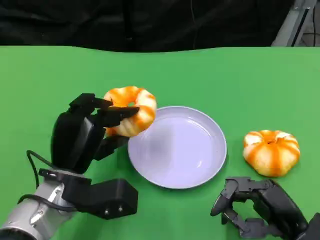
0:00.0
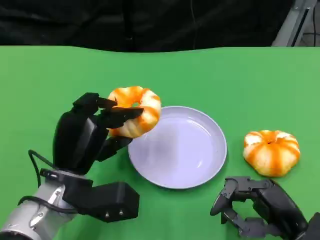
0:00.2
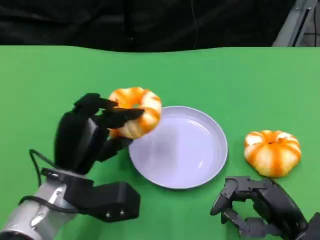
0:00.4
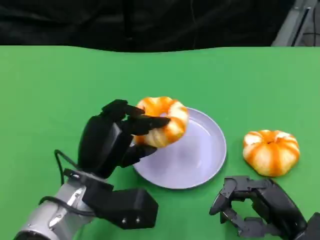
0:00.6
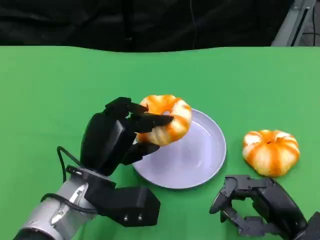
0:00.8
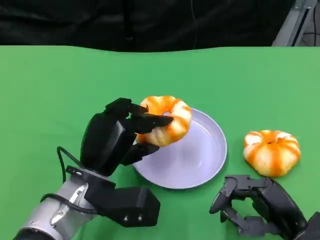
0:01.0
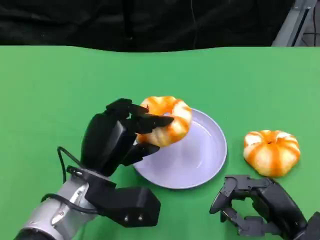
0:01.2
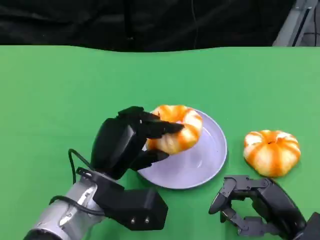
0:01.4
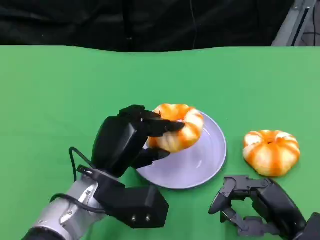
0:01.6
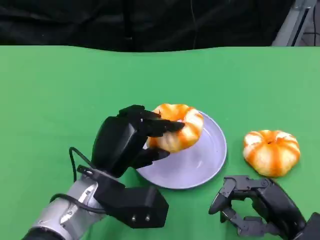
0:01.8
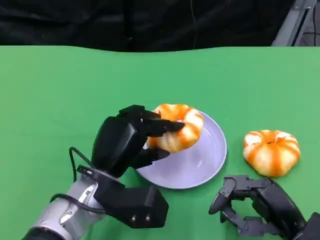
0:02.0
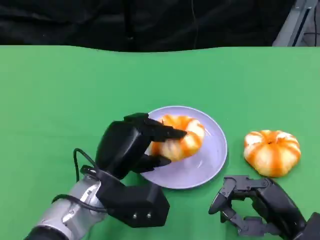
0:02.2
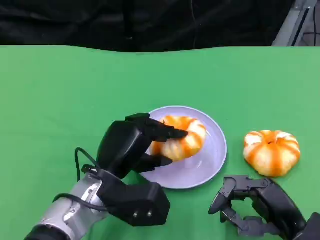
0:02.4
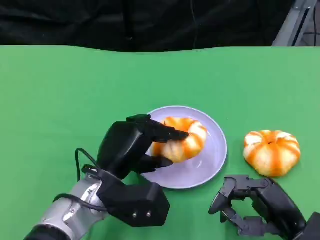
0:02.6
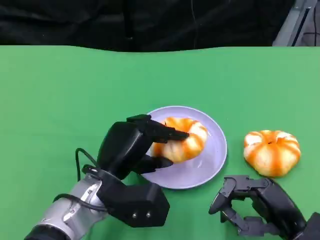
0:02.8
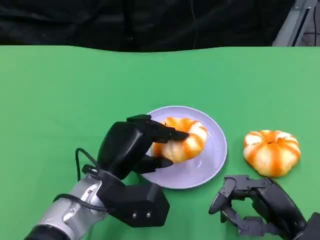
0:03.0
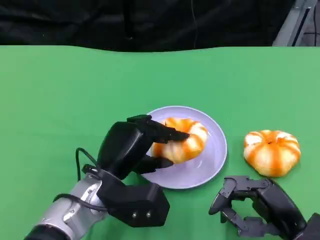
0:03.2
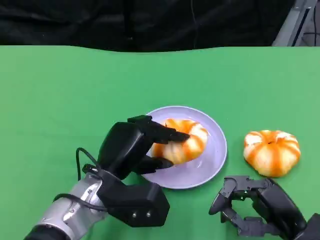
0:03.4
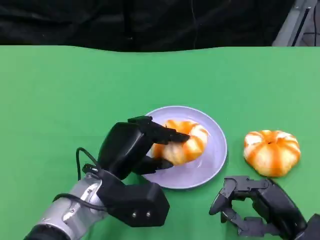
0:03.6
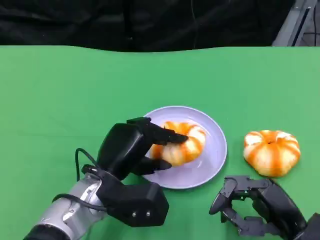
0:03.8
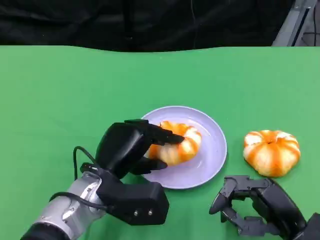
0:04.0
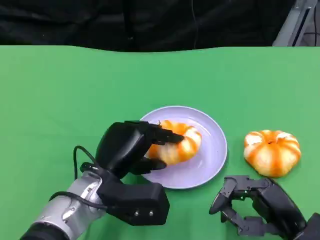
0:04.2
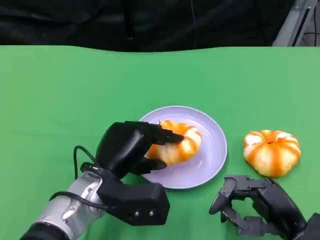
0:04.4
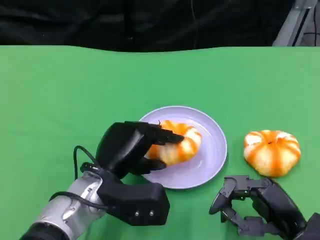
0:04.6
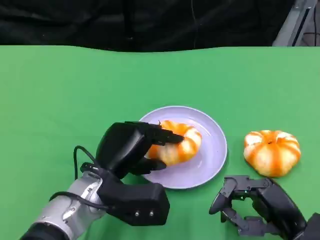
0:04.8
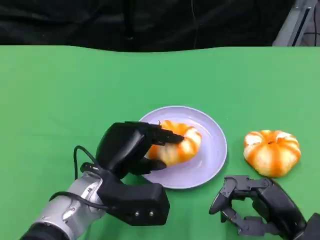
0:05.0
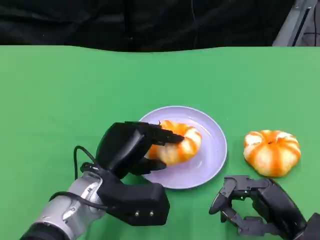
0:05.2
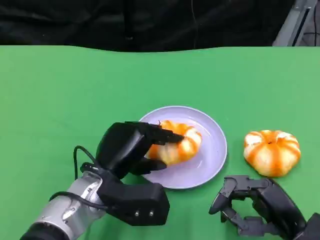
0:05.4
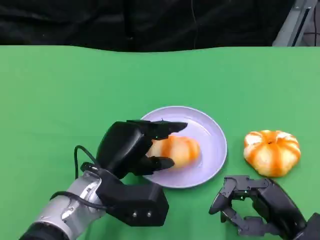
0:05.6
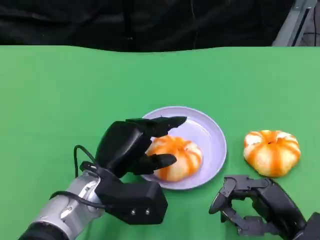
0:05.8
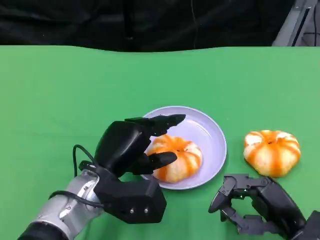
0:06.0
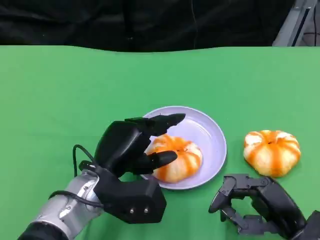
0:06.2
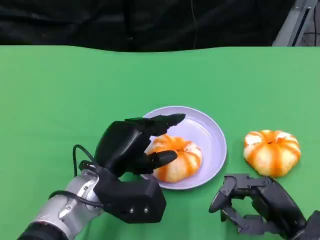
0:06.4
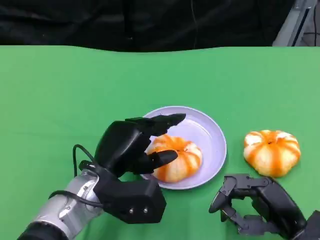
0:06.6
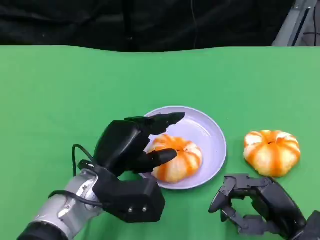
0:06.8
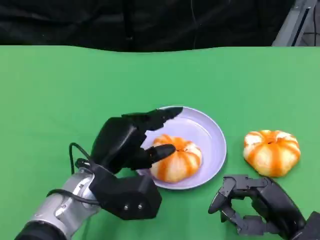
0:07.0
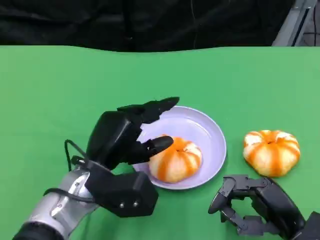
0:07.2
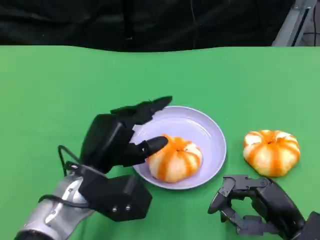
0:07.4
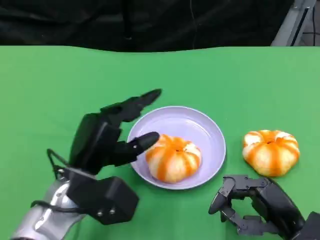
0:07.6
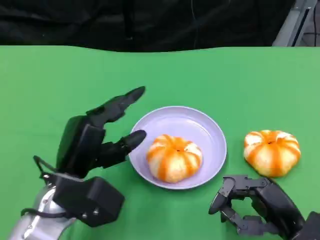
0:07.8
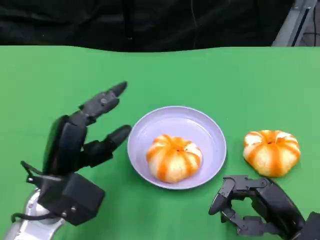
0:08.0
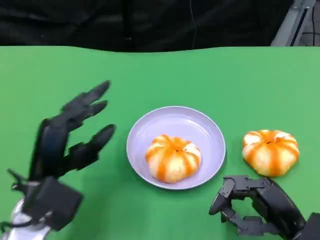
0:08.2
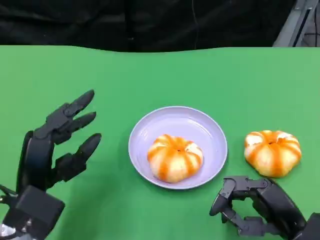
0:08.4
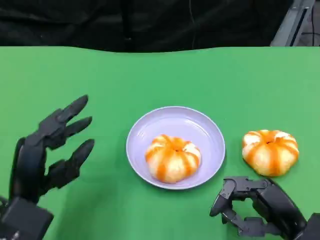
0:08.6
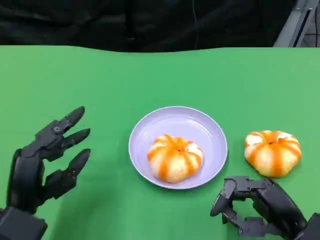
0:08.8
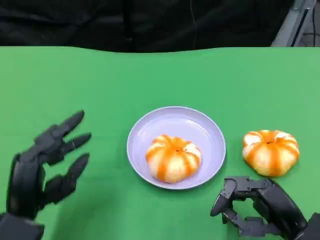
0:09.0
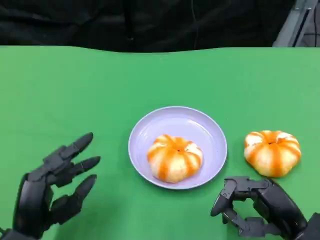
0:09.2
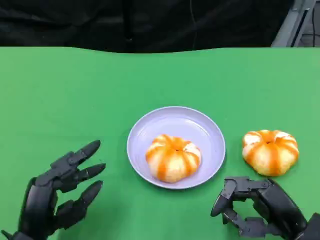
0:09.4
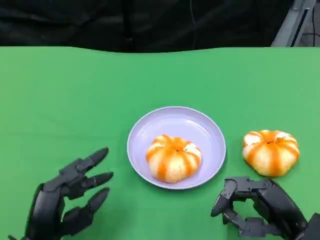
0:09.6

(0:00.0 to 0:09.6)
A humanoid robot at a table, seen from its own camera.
Task of the whole recording: Grasp the bread from the table and place it into the plate.
0:01.6 - 0:04.8: The hands make only small movements.
0:04.8 - 0:06.4: The two hands keep their place.
0:06.4 - 0:08.0: The left hand moves to the left, about 5 cm.
0:08.0 - 0:09.6: The left hand shifts some 10 cm backward and downward.

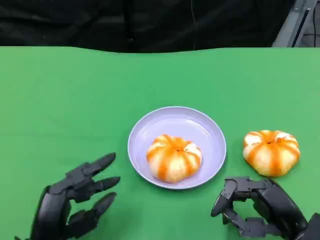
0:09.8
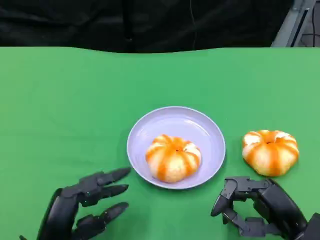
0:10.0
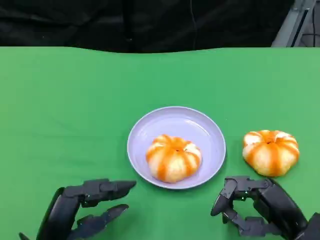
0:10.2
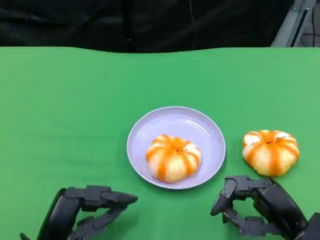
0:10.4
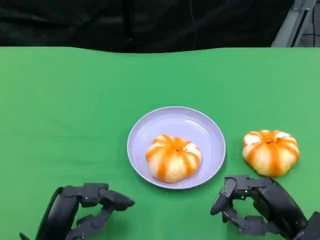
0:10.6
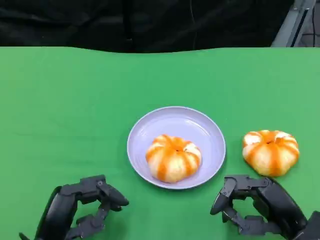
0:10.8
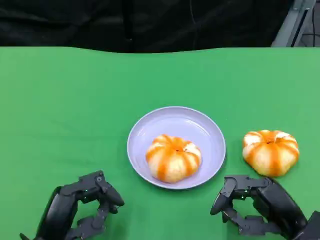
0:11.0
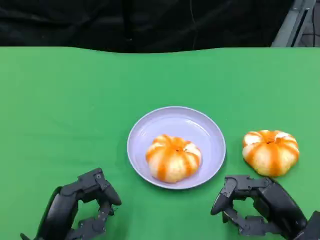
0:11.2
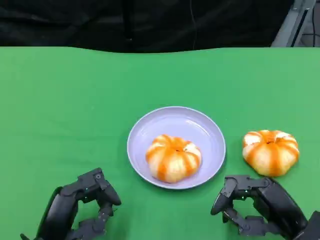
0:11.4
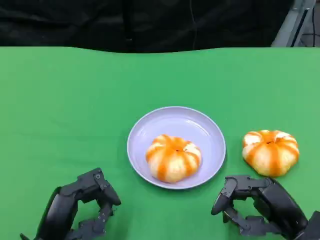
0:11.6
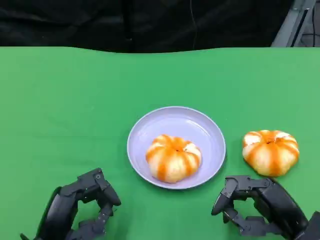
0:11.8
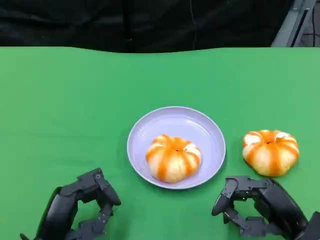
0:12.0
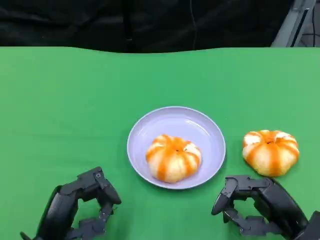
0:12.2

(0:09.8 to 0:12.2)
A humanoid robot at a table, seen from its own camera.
Task of the whole recording: Grasp the bread from the table and place it into the plate.
0:09.8 - 0:11.0: The hands make only small movements.
0:11.0 - 0:12.2: The two hands keep their place.

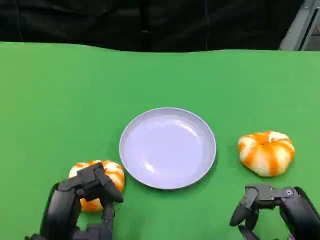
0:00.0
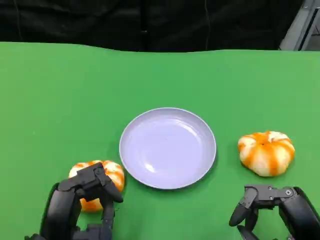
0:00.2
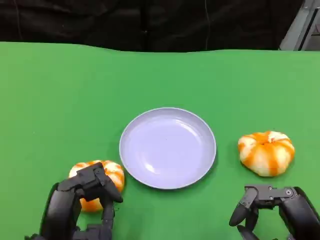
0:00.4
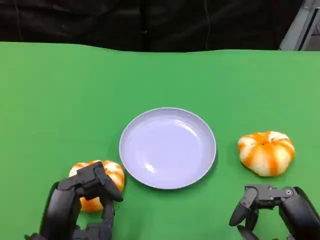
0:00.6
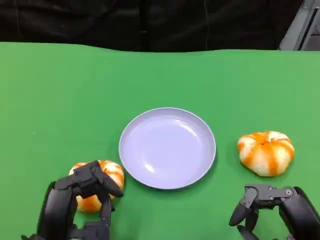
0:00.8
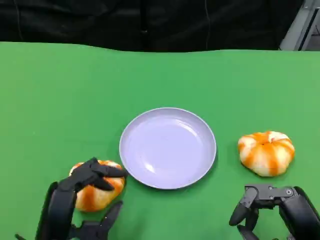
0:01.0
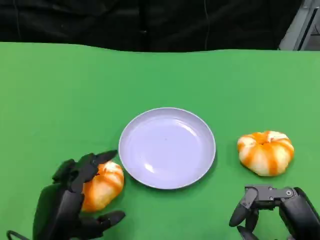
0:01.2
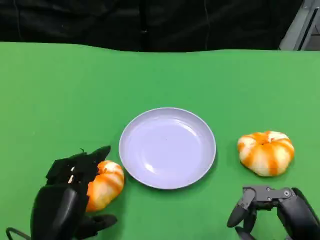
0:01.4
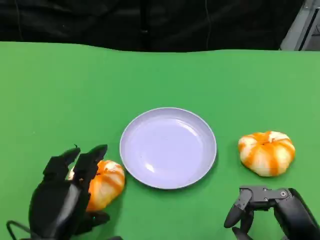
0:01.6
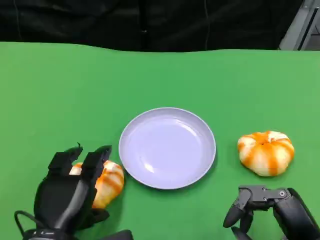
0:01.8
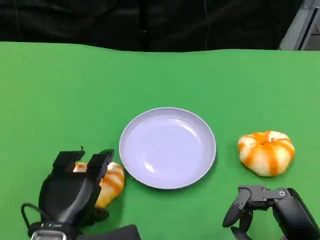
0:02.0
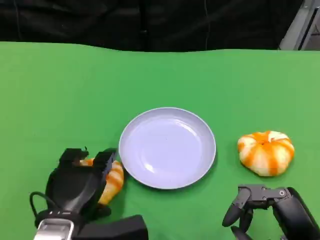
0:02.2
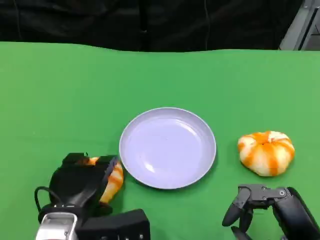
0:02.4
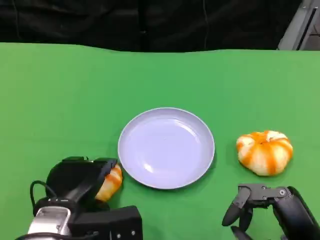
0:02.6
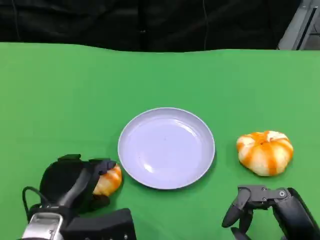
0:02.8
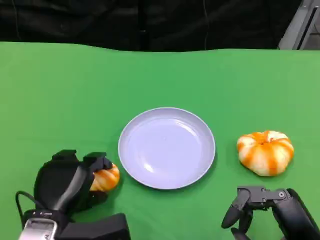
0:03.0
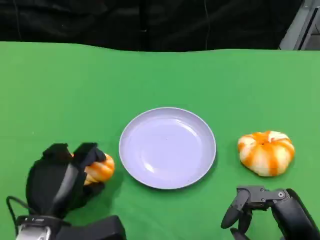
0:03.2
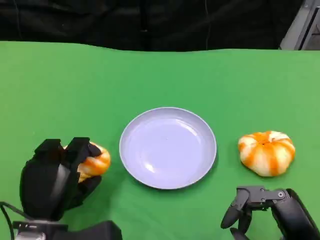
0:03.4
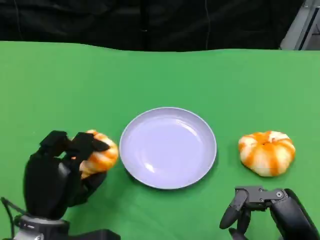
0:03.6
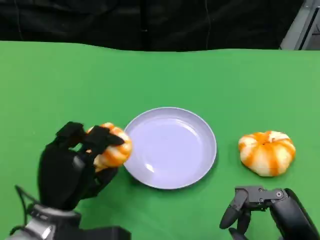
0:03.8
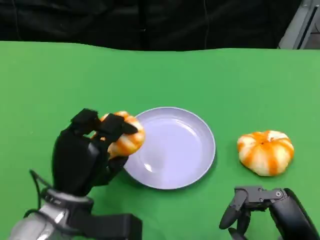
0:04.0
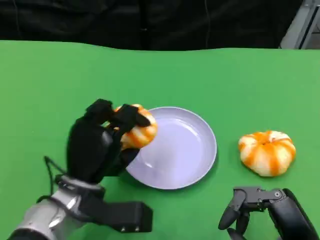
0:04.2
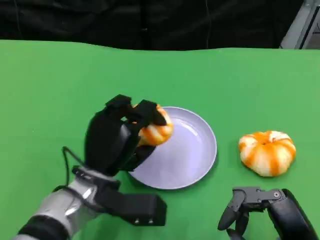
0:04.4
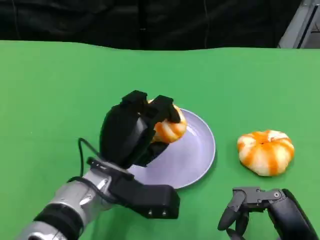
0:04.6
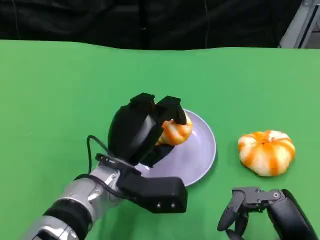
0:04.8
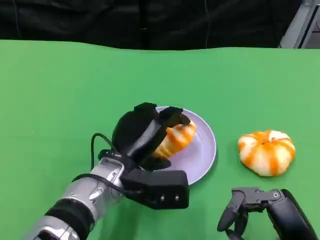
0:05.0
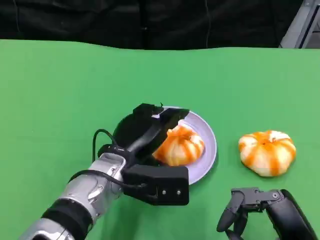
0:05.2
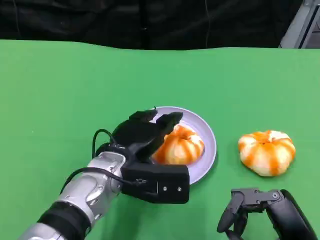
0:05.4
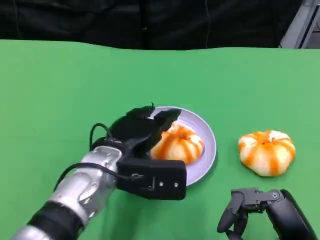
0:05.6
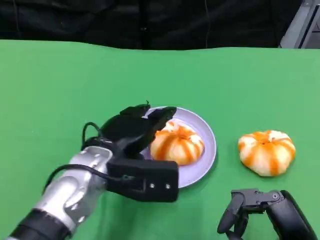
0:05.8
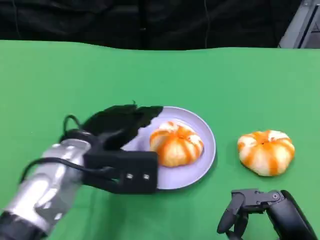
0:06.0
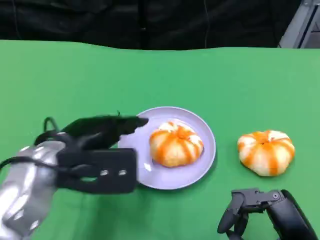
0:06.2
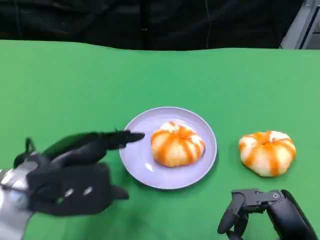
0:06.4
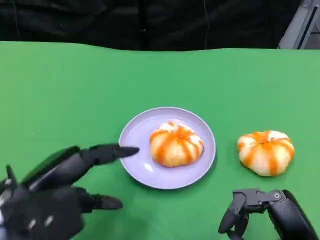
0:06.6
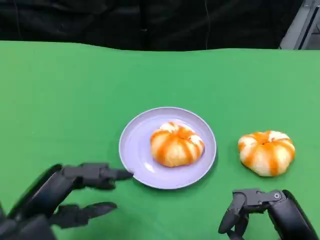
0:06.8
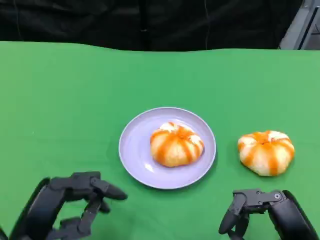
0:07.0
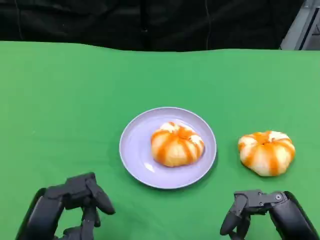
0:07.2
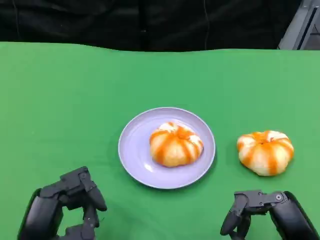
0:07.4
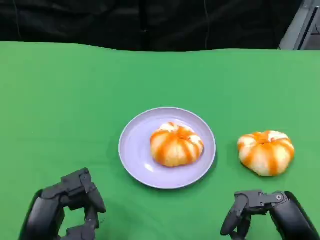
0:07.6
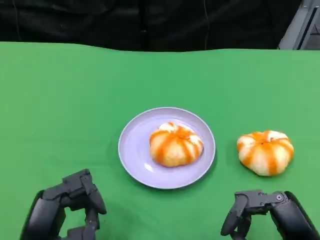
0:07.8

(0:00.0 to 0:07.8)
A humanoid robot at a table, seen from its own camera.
Task of the whole recording: Grasp the bread from the table and place it into the plate.
0:03.2 - 0:04.6: The left hand travels to the right and forward by about 10 cm.
0:04.6 - 0:06.2: The left hand goes approximately 10 cm upward and to the left.
0:06.2 - 0:07.8: The left hand is displaced backward and downward by approximately 15 cm.

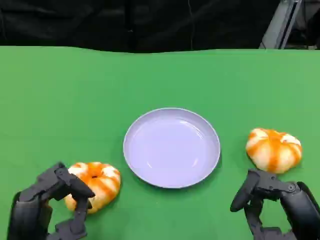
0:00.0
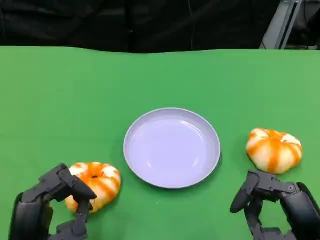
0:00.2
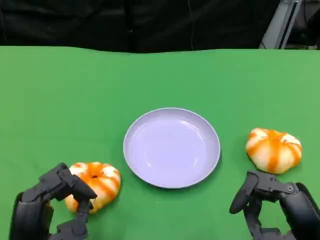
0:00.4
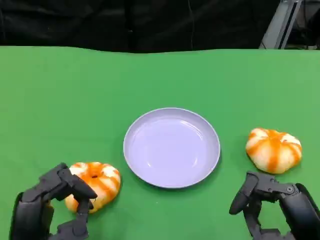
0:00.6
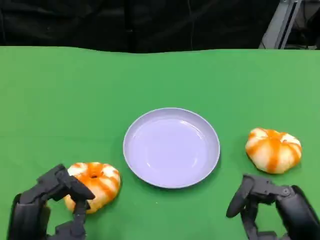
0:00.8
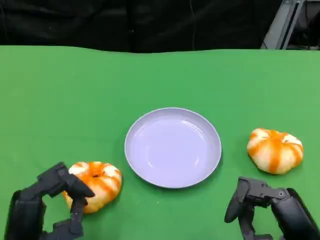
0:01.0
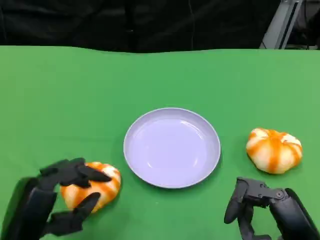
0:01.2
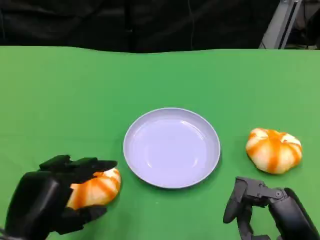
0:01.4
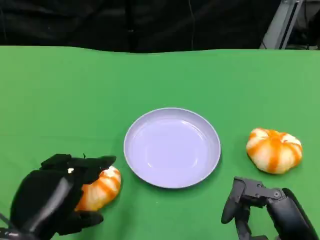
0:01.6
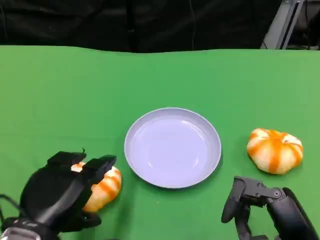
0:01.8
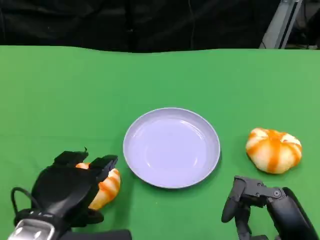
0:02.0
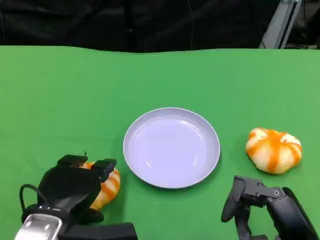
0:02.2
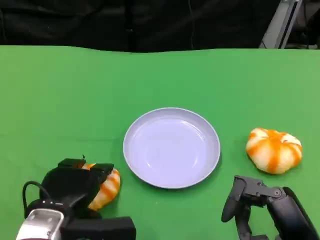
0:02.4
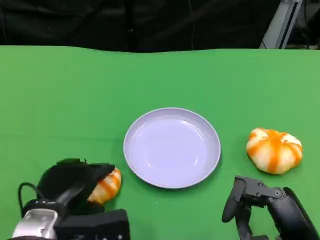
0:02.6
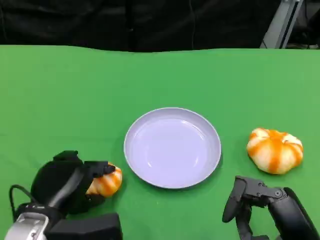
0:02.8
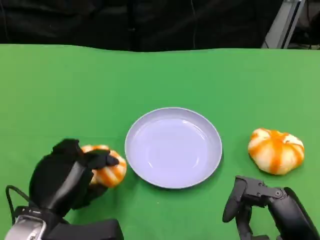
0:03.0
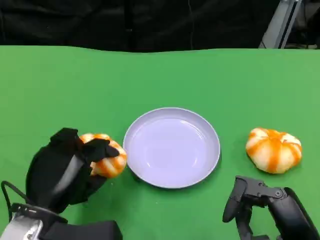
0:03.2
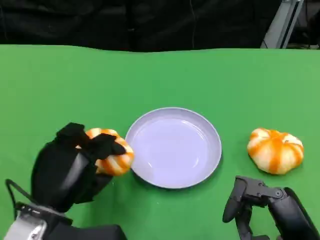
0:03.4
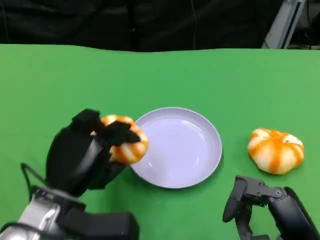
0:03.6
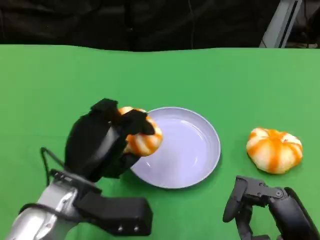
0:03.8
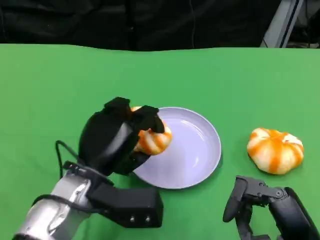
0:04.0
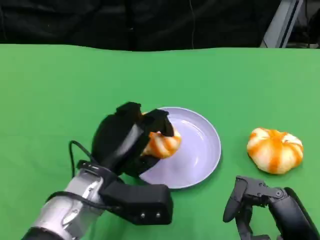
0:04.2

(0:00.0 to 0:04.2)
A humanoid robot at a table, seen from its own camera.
Task of the whole recording: Grasp the bread from the table and place it into the plate.
0:01.4 - 0:02.8: The left hand is displaced forward by approximately 5 cm.
0:02.8 - 0:04.2: The left hand goes some 10 cm to the right and forward.
